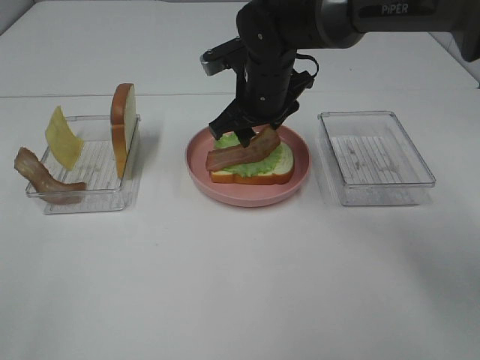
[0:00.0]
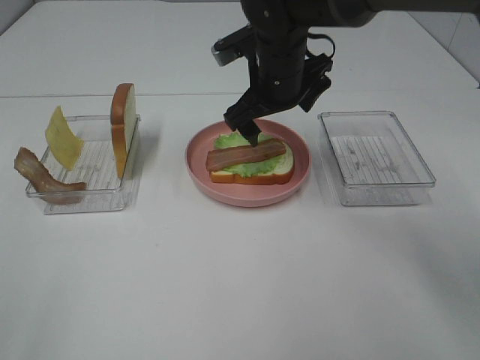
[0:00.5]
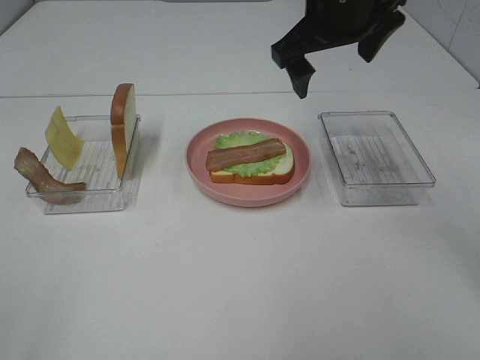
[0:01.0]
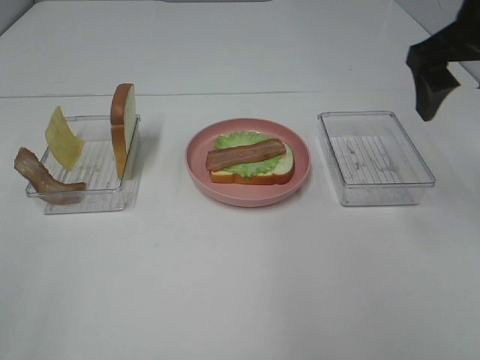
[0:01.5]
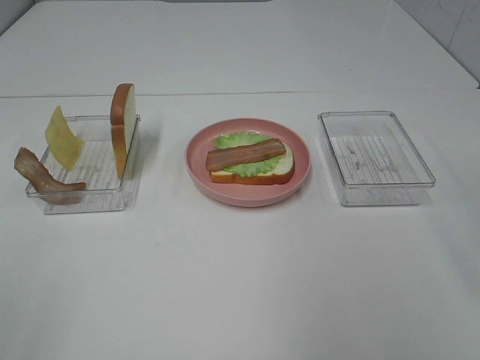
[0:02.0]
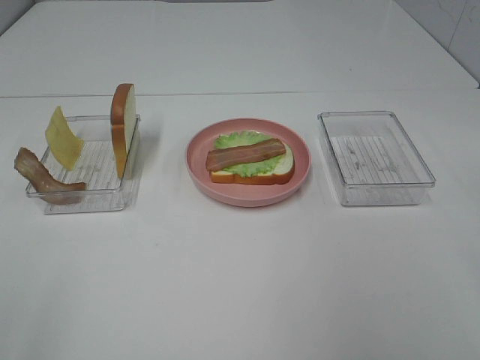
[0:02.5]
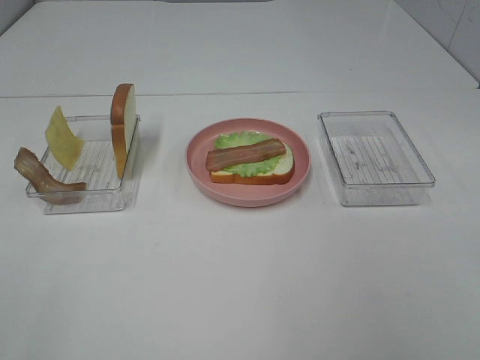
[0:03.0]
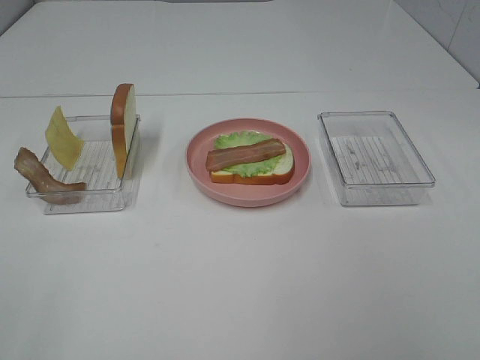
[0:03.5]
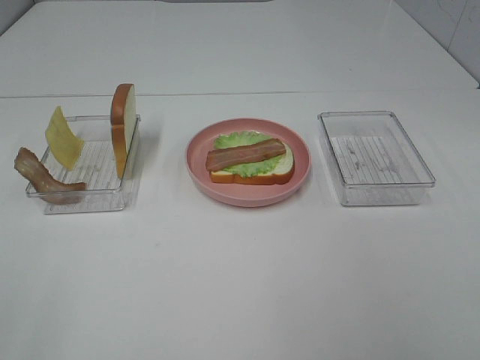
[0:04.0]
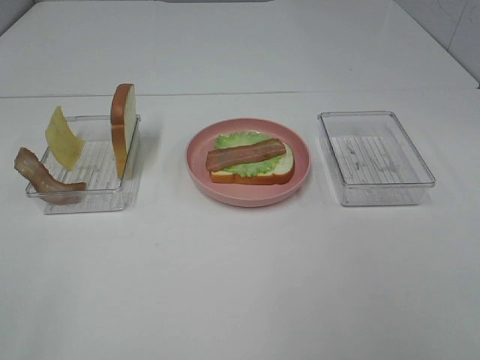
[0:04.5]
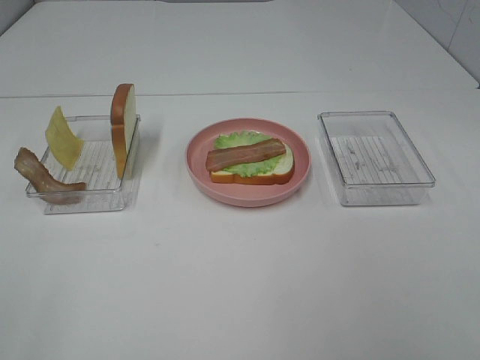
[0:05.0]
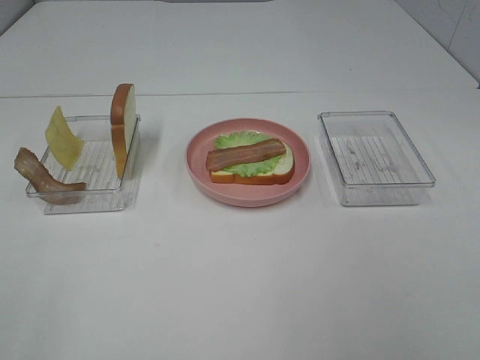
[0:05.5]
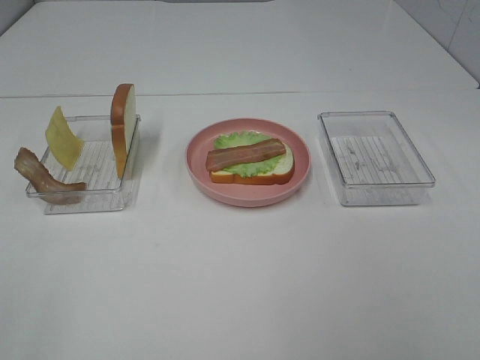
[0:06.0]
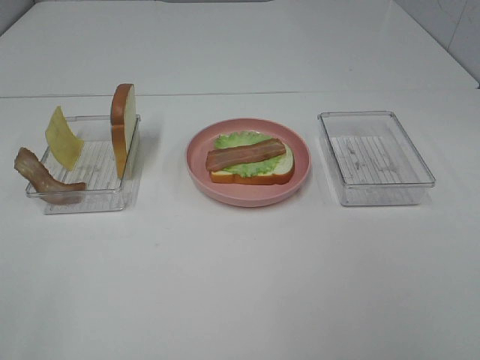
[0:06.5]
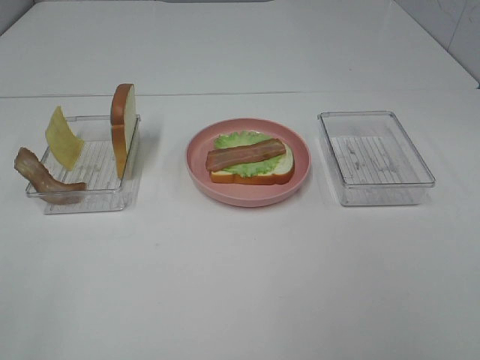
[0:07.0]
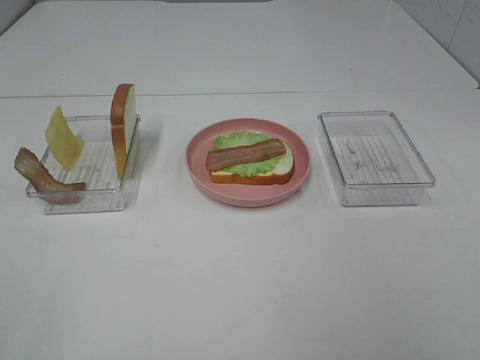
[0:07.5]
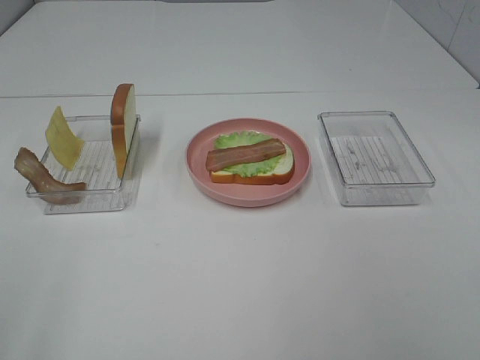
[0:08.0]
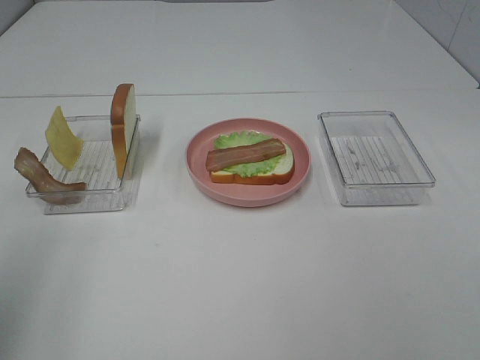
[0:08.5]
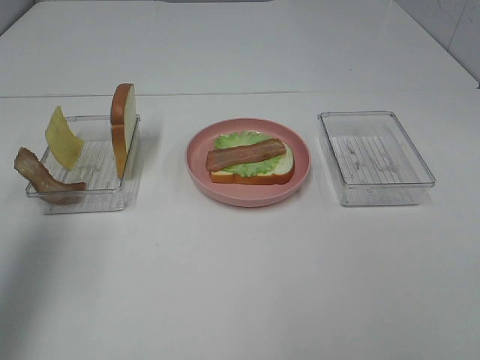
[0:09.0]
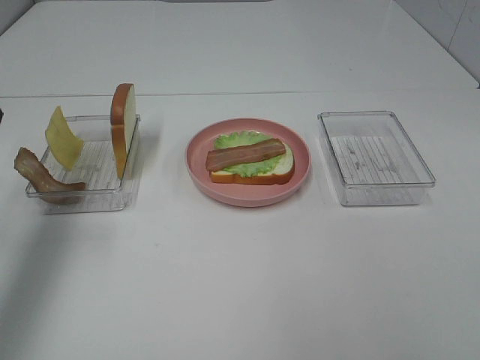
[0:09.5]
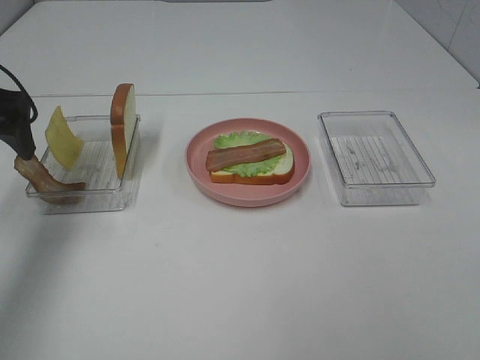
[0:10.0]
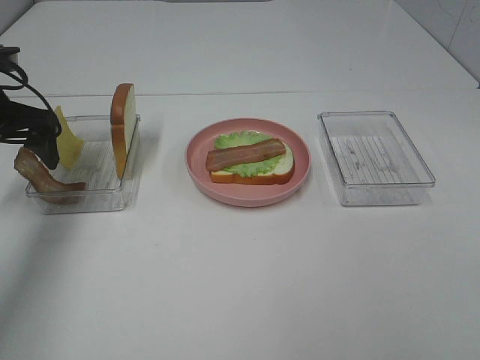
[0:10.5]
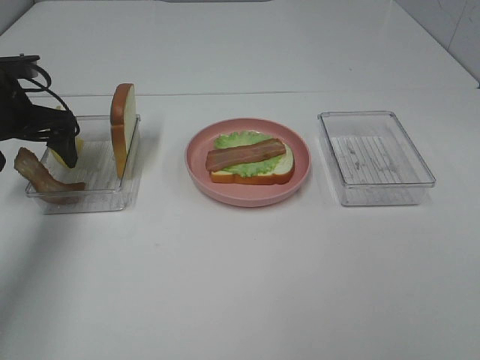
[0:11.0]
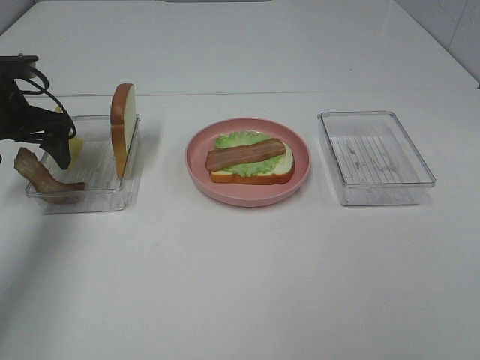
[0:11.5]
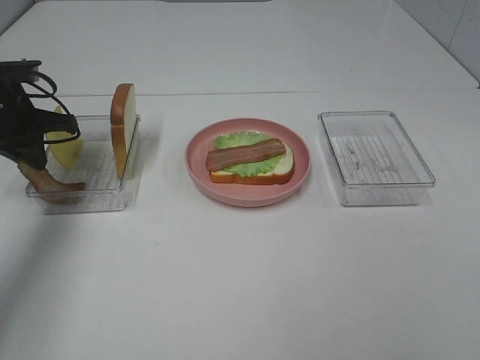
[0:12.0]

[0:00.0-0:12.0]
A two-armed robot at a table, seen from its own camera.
Task of the whole recording: Make sandwiches.
0:00.0 to 0:02.0: The right gripper goes about 35 cm to the right, backward and upward.
0:08.0 to 0:10.0: The left gripper shifts roughly 30 cm forward.
0:10.0 to 0:12.0: The left gripper shifts roughly 10 cm forward and downward, and closes.

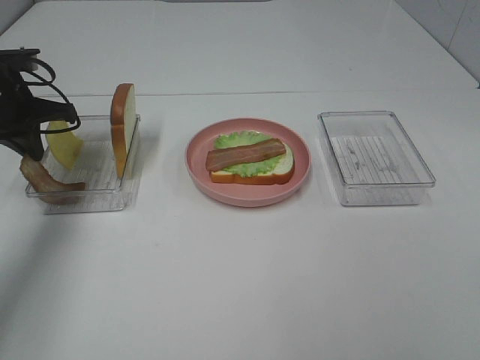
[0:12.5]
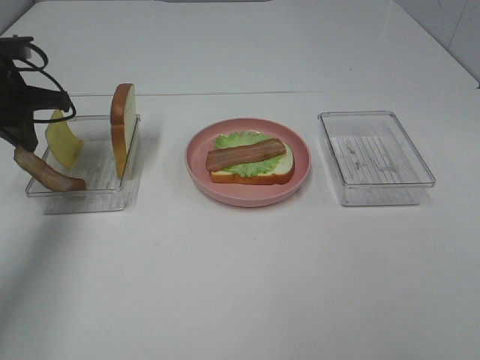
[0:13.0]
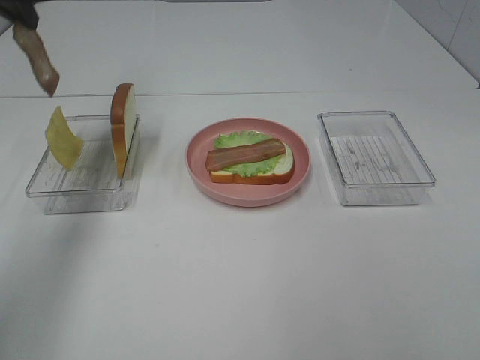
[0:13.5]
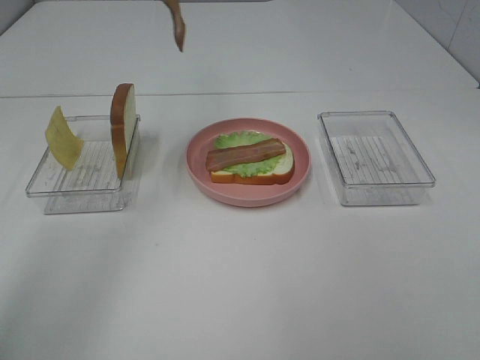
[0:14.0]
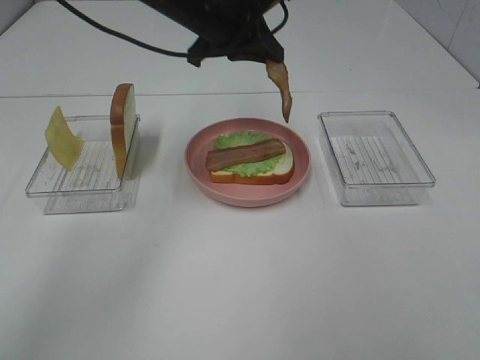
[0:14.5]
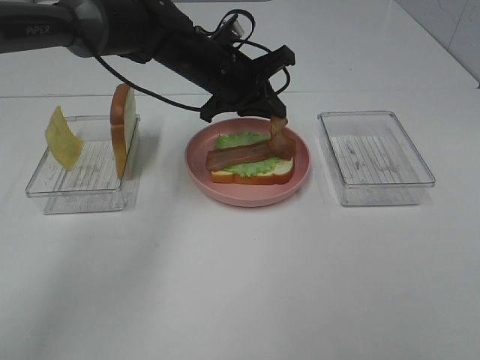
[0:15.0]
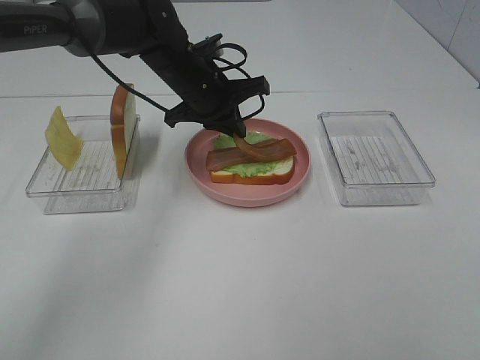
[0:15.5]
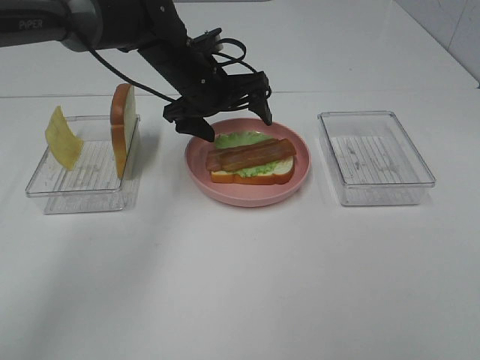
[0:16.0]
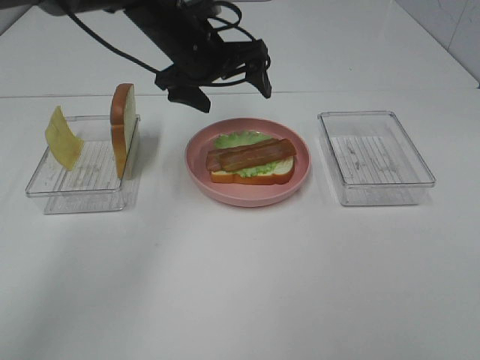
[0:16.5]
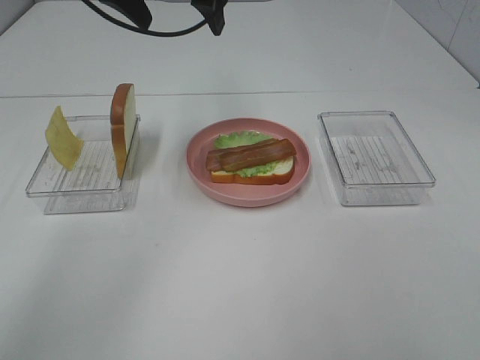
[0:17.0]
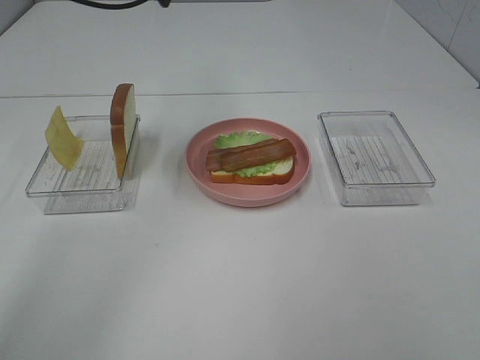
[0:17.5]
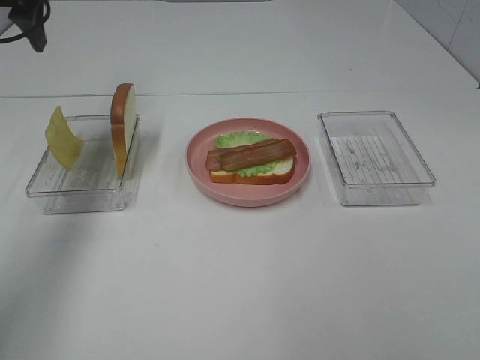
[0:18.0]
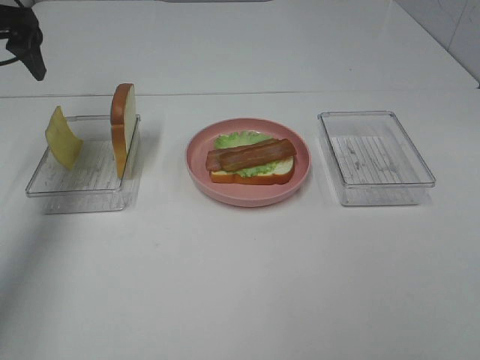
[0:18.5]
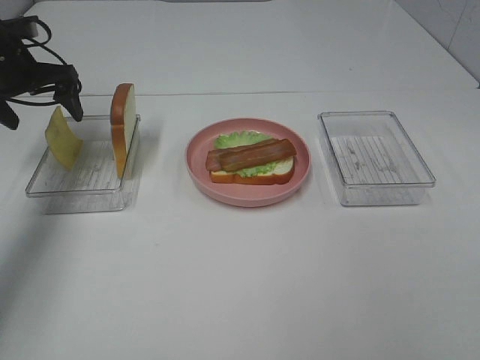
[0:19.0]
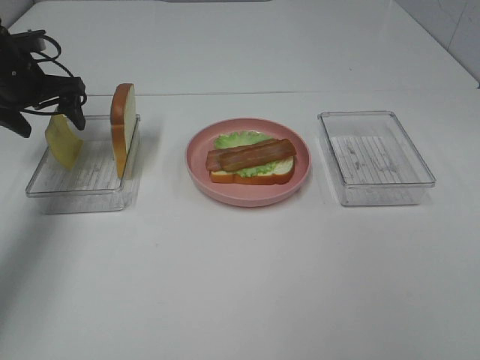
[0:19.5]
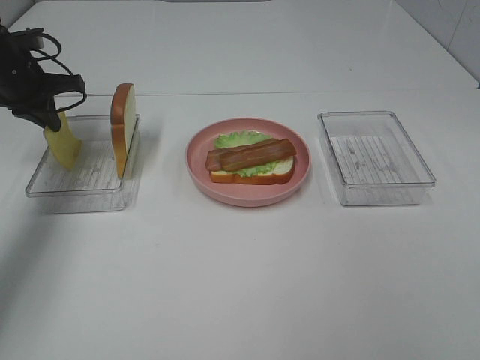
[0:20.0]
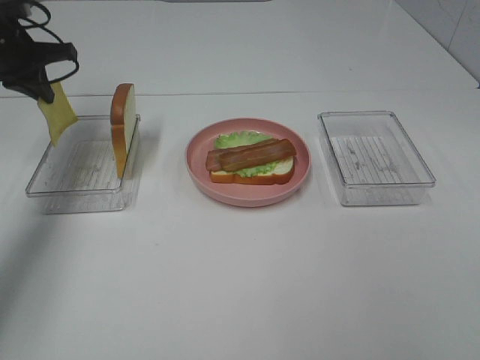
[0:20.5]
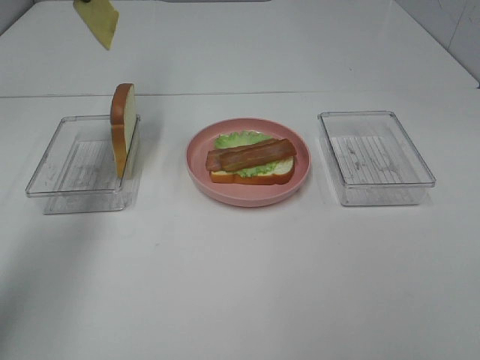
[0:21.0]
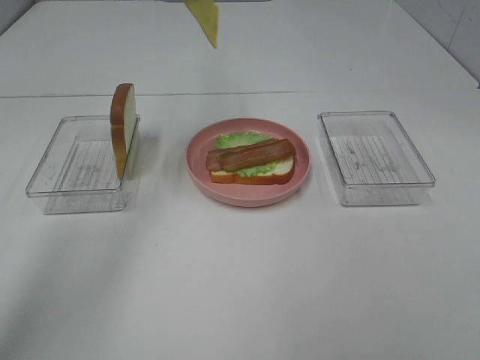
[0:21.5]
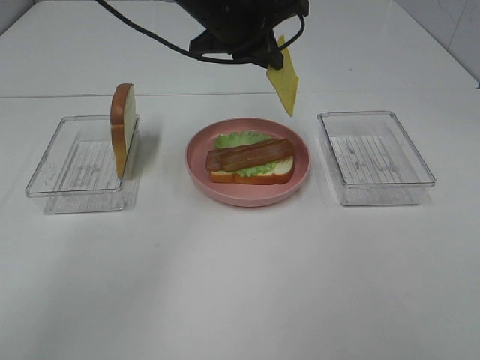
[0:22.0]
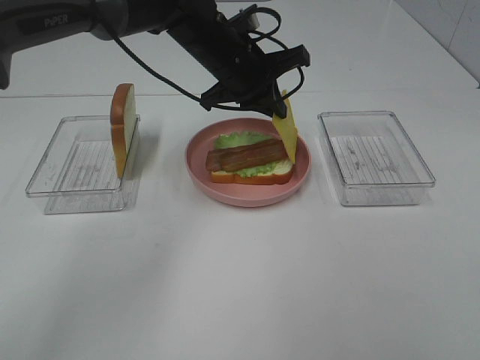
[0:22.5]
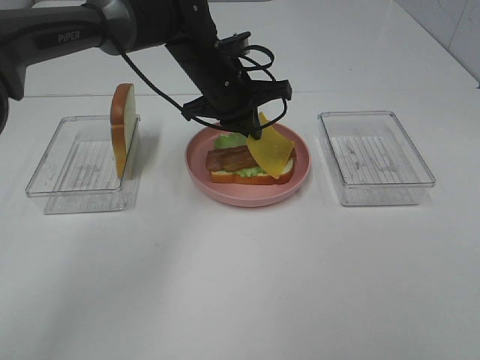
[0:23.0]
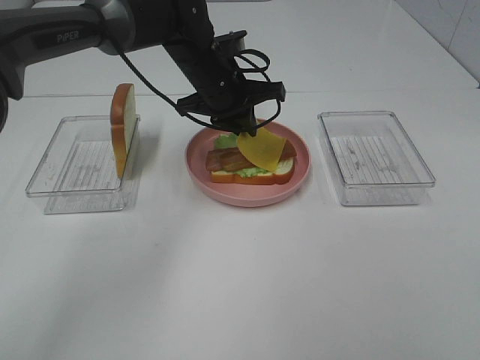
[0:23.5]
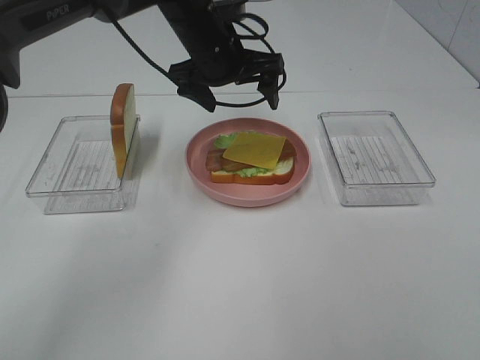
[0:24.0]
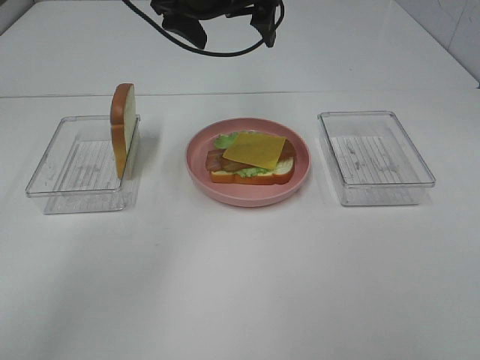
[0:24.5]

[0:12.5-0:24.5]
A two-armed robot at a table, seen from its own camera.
Task of the whole recording: Make sandwiches.
Step, 0:12.5 to 0:16.0: Left hand:place bacon on bacon.
Step, 0:16.5 to 0:19.5: Left hand:grab the cheese slice.
Step, 0:20.0 to 0:23.5: Left hand:place the cheese slice on top of the bacon.
0:12.5 to 0:14.5: The left gripper heads to the right, covering approximately 25 cm.
0:14.5 to 0:16.5: The left gripper travels downward and back again, about 10 cm each way, and opens.
0:16.5 to 0:18.5: The left gripper moves to the left, roughly 25 cm.
0:18.5 to 0:20.5: The left gripper is displaced downward and forward by some 10 cm, and closes up.
0:20.5 to 0:22.5: The left gripper travels to the right by approximately 30 cm.
0:22.5 to 0:24.5: The left gripper shifts about 10 cm upward, and opens its fingers.

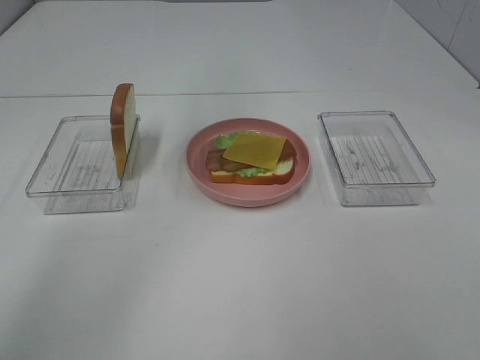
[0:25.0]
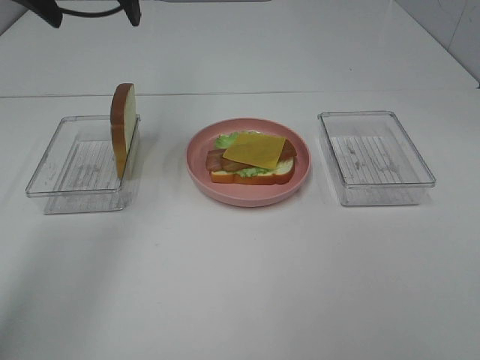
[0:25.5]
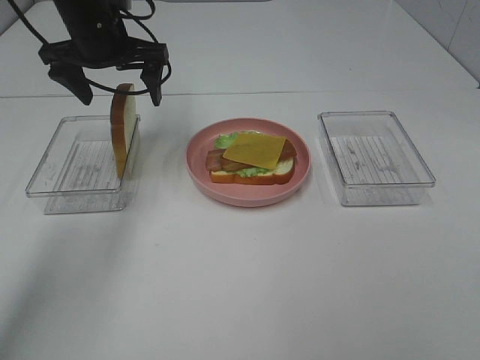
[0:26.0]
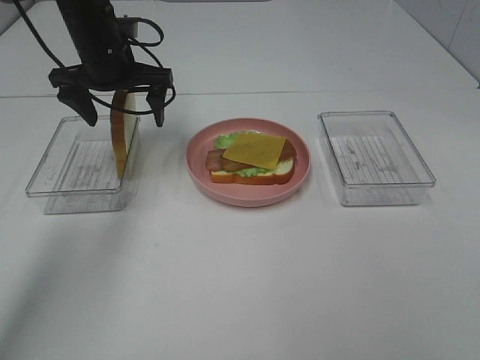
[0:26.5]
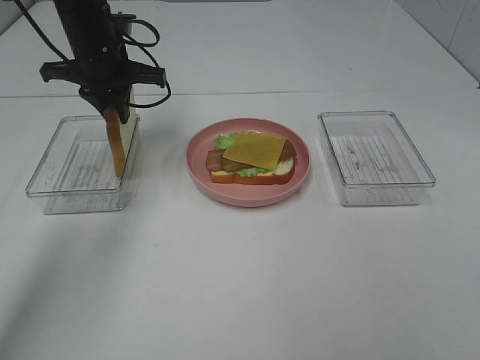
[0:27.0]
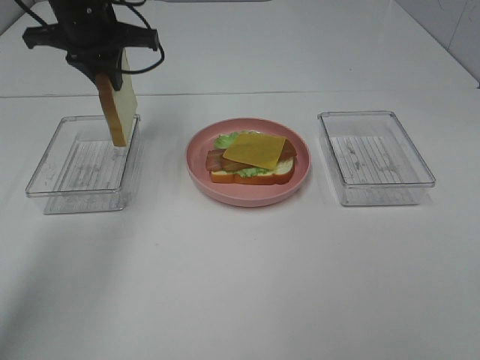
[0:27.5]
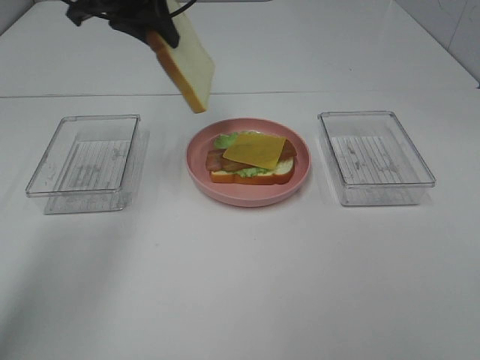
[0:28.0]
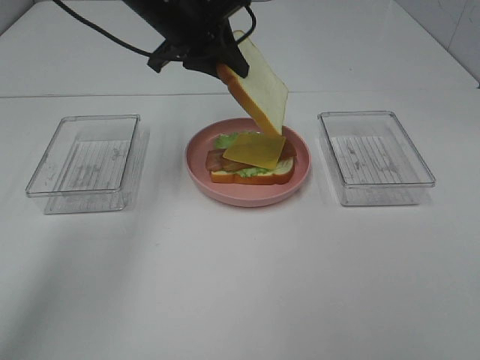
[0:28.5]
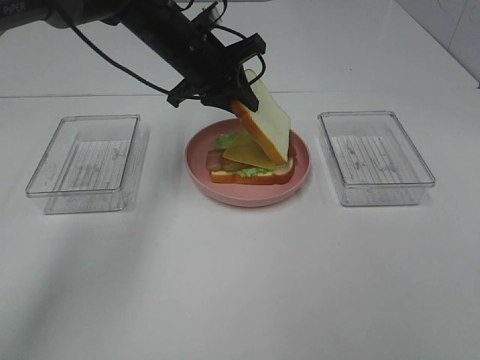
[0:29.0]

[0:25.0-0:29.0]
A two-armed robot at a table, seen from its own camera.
Task of the whole recording: Make sandwiches.
Step, 0:25.0 to 0:26.5: Left hand:grab the bread slice.
0:25.0 to 0:27.0: The left gripper goes roughly 20 cm downward, and closes.
0:27.0 to 0:29.0: The left gripper goes some 10 cm to the right, and reaches about 10 cm upward, then returns.
